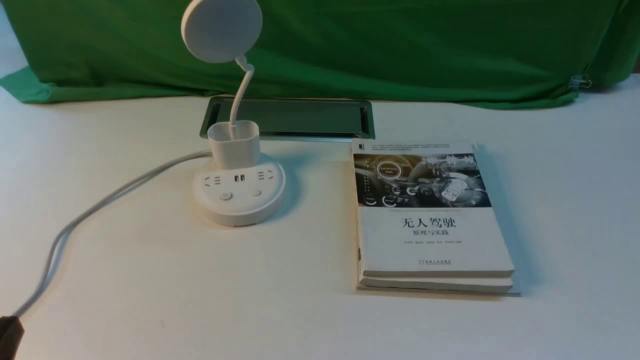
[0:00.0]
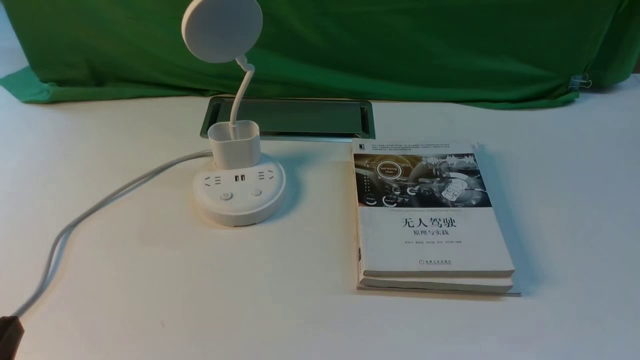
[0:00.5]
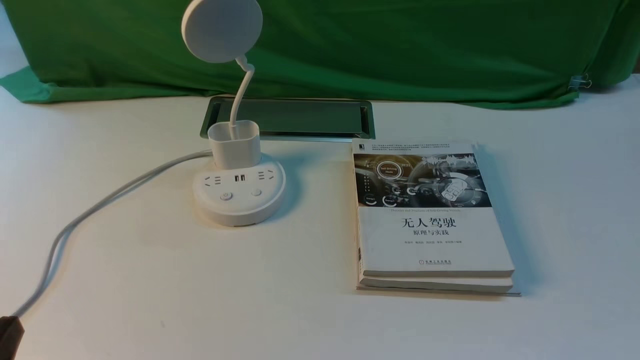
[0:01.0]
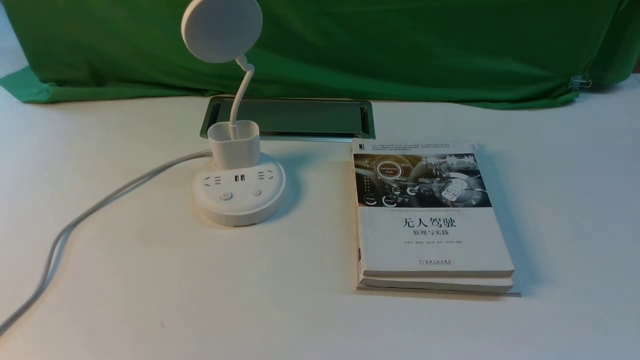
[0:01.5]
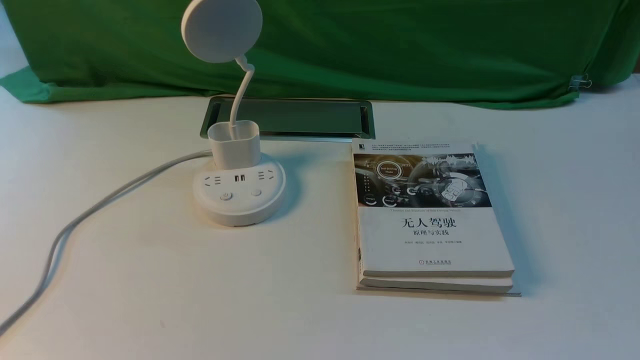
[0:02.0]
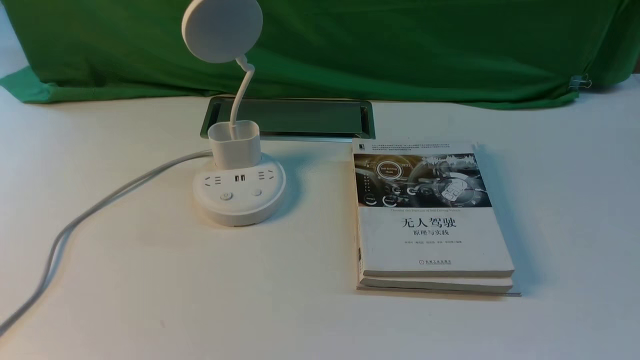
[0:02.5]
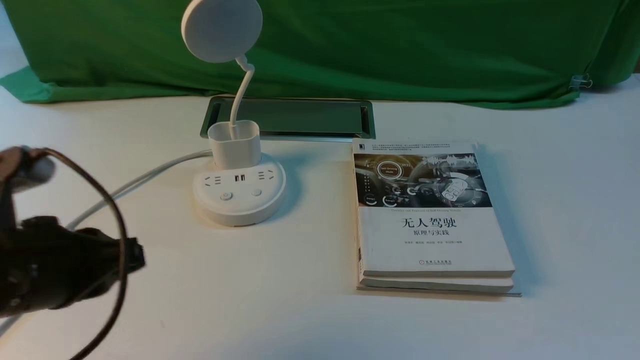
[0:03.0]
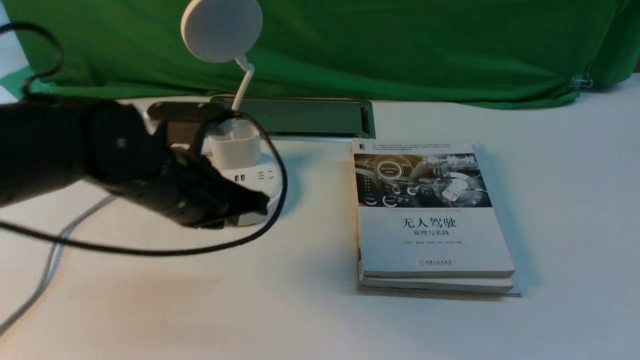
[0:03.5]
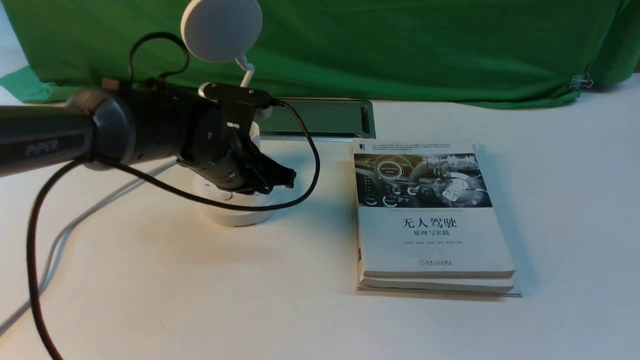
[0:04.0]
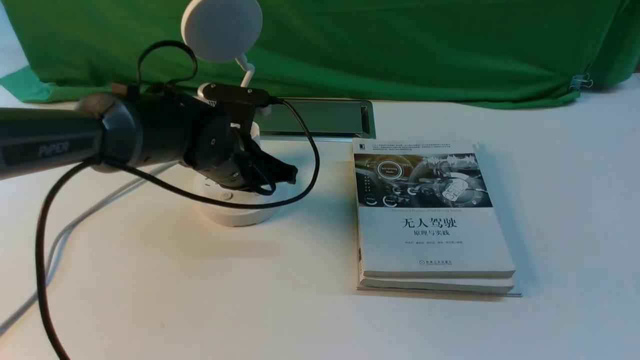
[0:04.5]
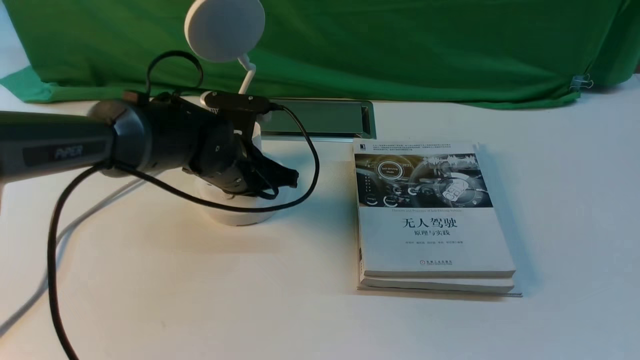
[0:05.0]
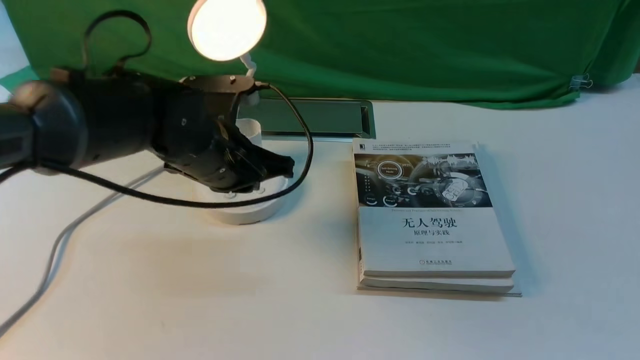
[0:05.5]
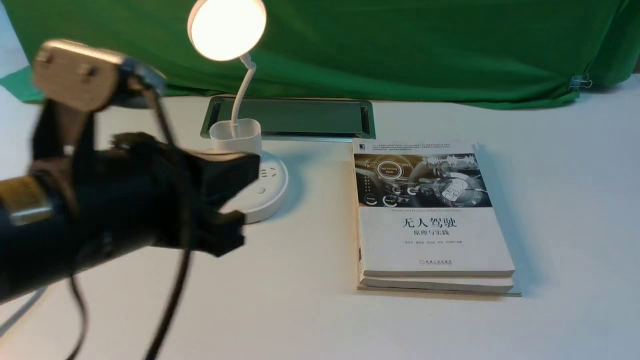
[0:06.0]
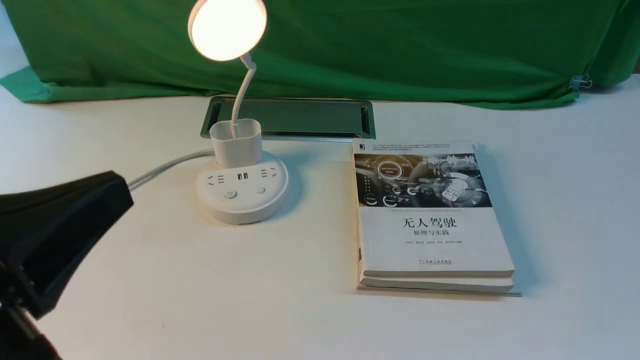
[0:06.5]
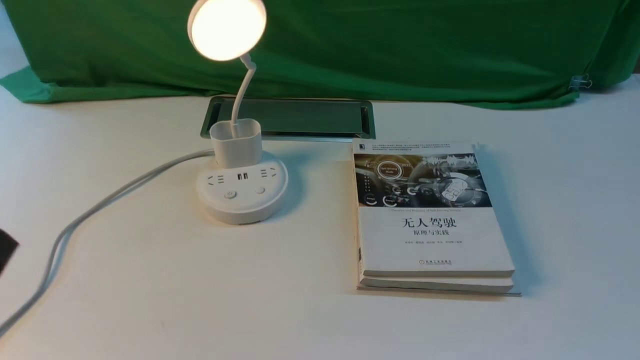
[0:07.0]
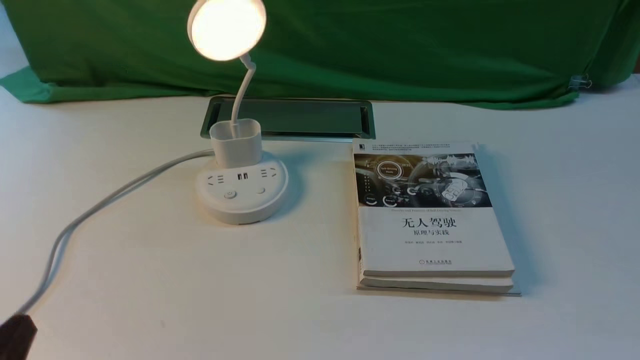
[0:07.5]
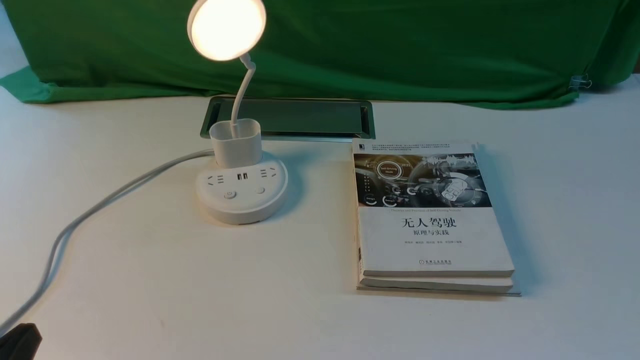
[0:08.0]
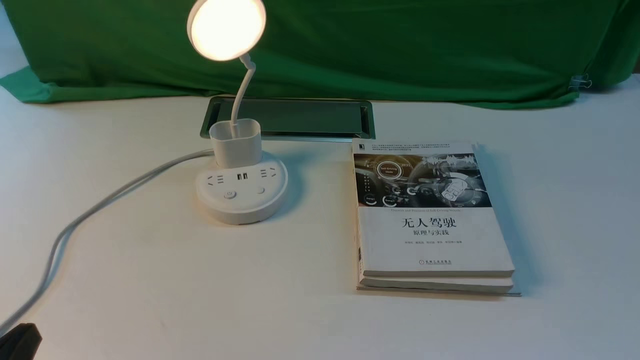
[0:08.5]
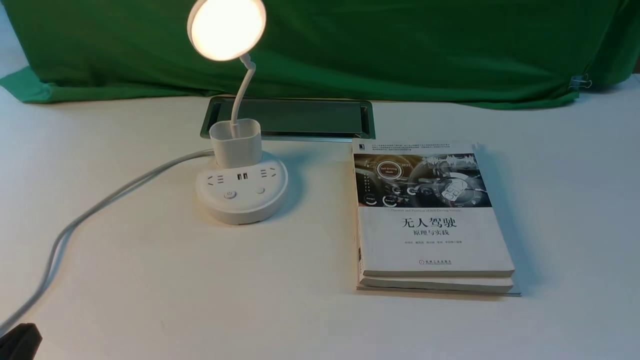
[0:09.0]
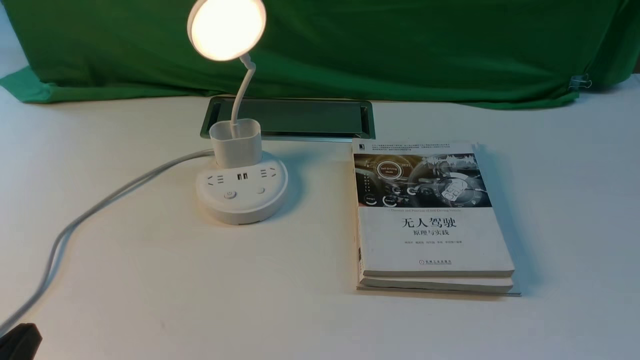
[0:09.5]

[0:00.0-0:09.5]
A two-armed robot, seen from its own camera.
Step, 0:00.0 to 0:05.5: use the left arm to press the button switch on the lamp holder.
0:02.0 to 0:04.0: The left gripper goes some 40 cm forward and to the right, and closes.
0:04.0 to 0:05.5: The left gripper travels backward by roughly 5 cm, and opens up.
0:05.5 to 0:07.5: The left gripper is displaced backward and to the left by roughly 30 cm.

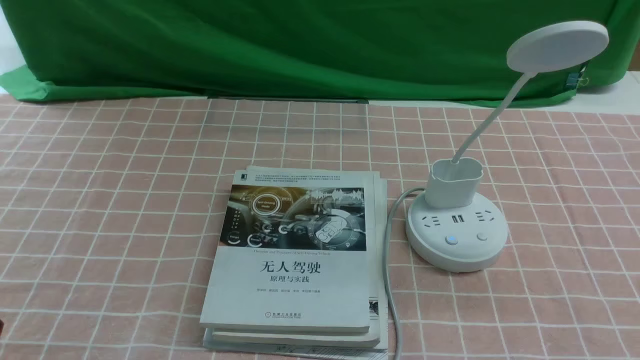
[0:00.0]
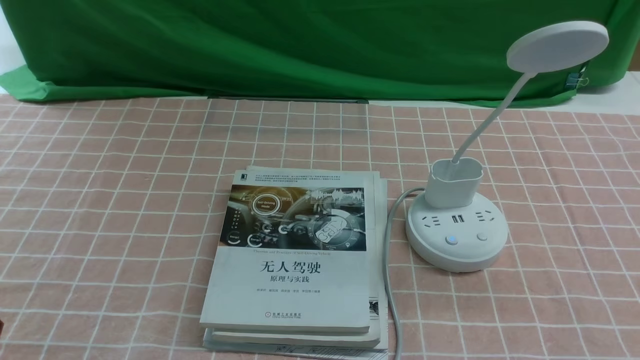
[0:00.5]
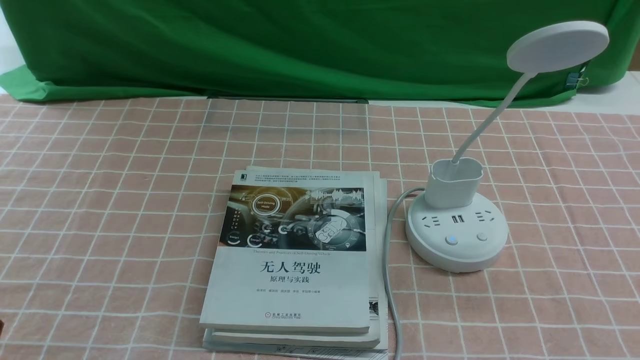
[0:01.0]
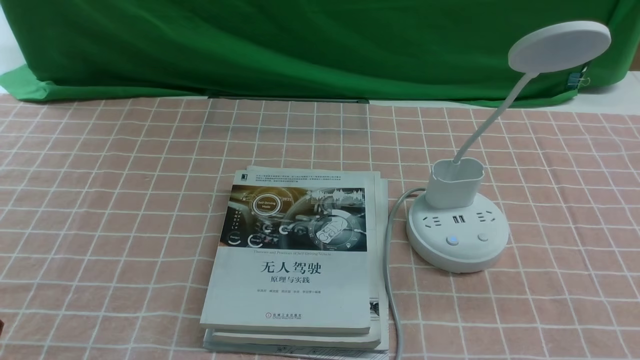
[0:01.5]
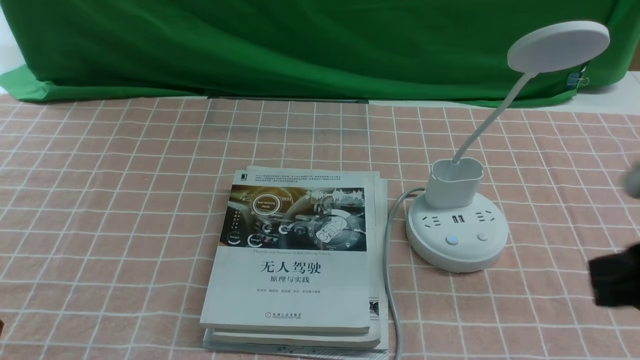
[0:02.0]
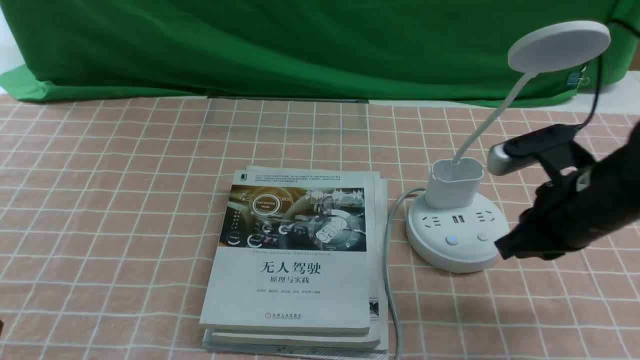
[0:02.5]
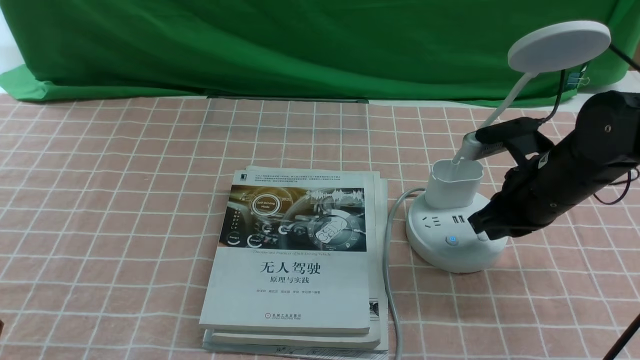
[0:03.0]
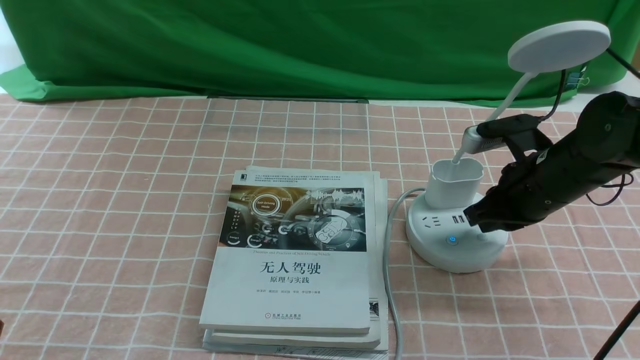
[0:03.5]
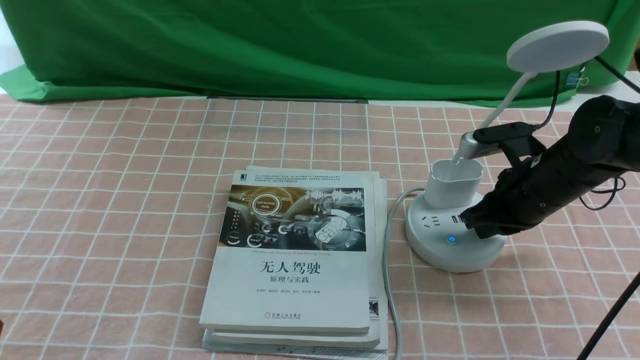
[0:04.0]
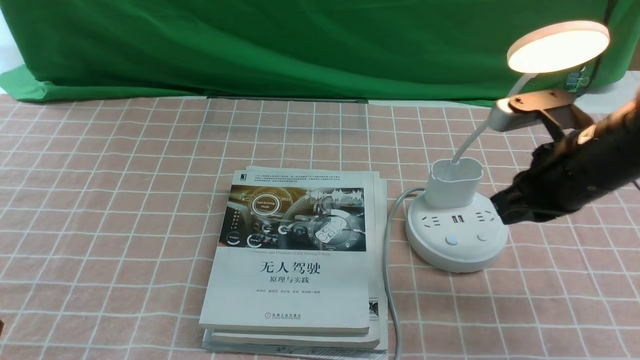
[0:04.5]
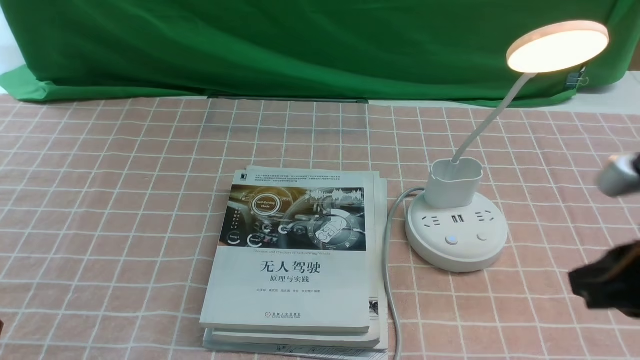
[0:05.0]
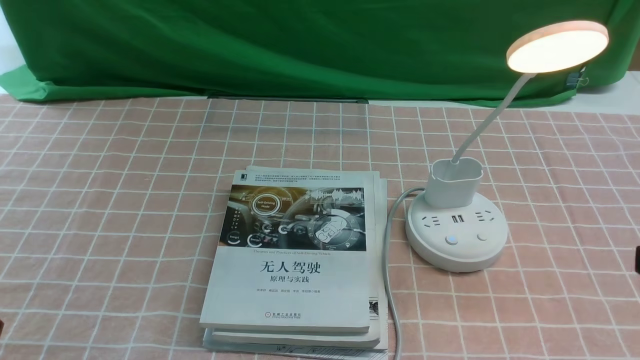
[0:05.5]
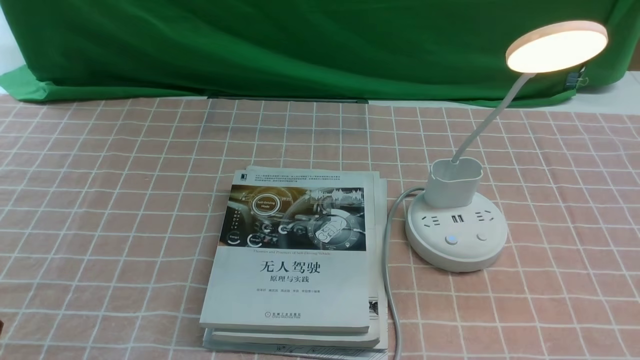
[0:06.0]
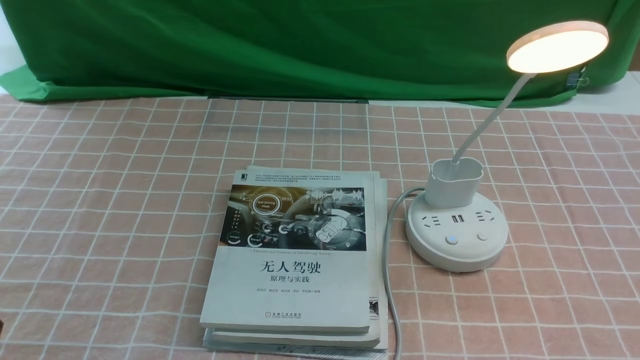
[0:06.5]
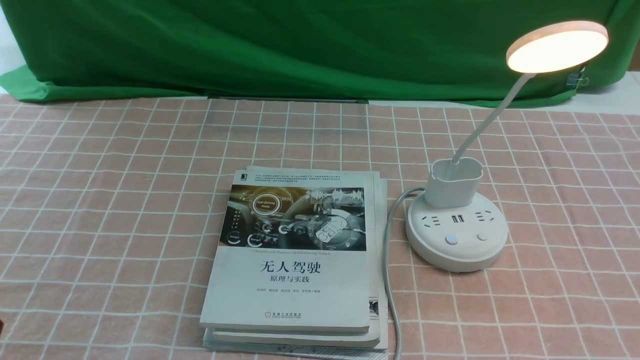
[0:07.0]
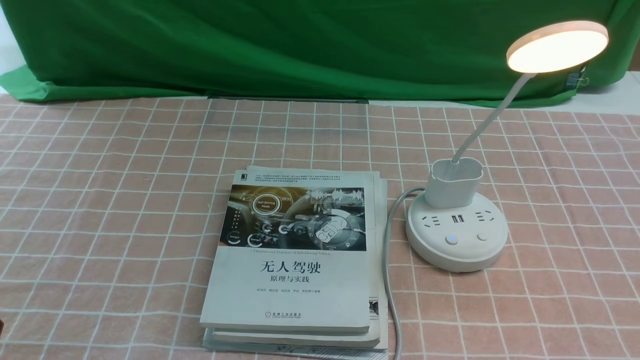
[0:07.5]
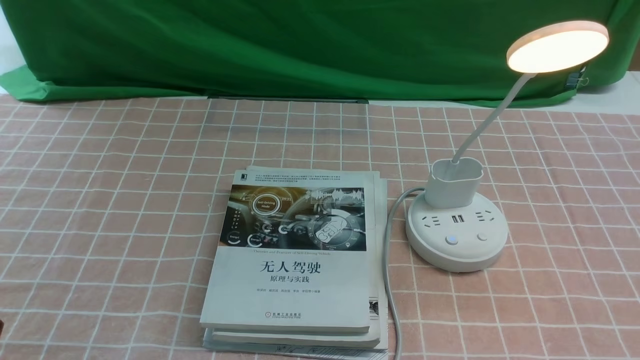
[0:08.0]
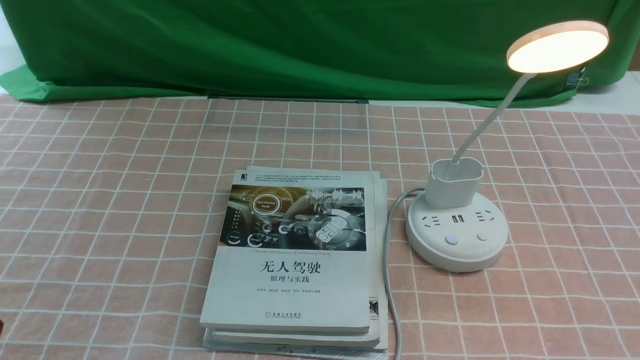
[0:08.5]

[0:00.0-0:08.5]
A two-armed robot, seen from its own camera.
Step, 0:00.0 to 0:04.0: use the right arm to press the button switch on the lamp holder.
0:00.0 to 0:02.0: The right gripper goes some 15 cm forward and upward, and closes.
0:02.0 to 0:04.0: The right gripper heads forward and downward, covering approximately 20 cm.
0:04.0 to 0:06.5: The right gripper travels backward by about 30 cm.
